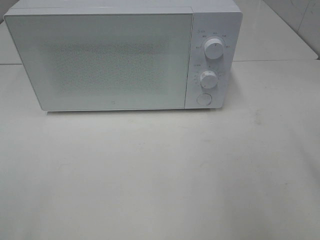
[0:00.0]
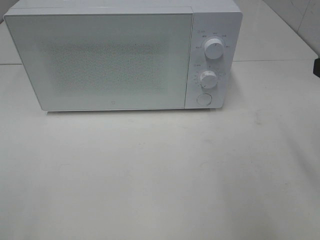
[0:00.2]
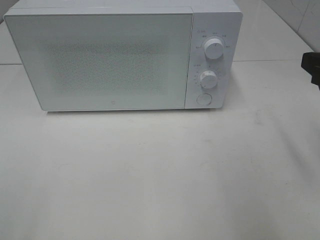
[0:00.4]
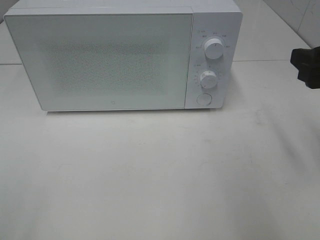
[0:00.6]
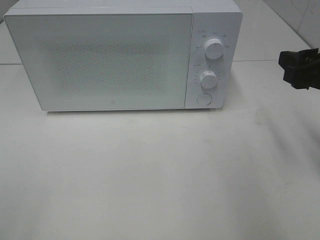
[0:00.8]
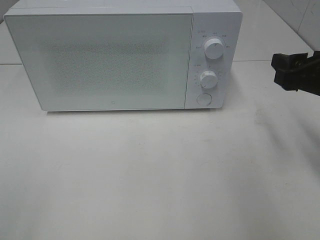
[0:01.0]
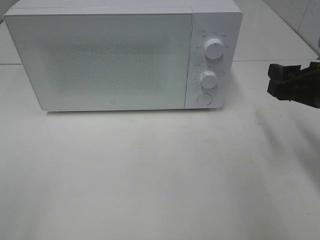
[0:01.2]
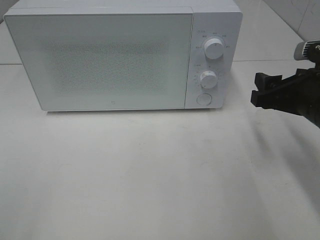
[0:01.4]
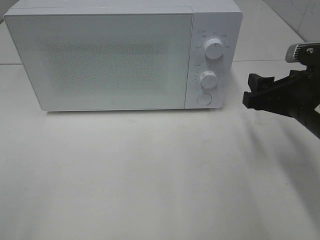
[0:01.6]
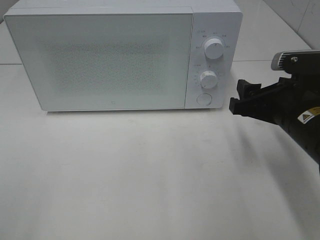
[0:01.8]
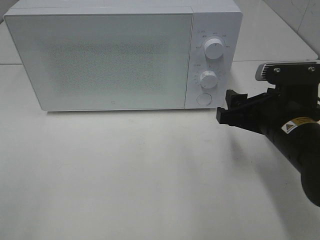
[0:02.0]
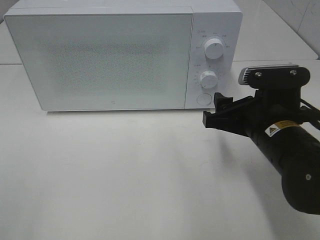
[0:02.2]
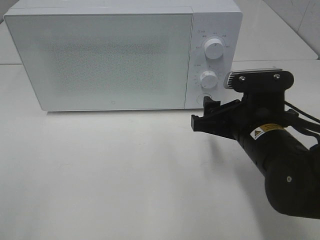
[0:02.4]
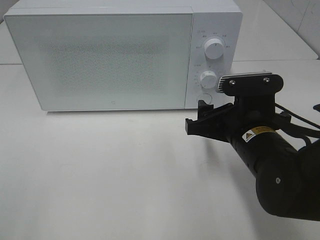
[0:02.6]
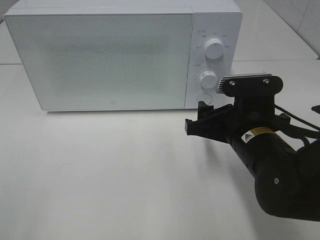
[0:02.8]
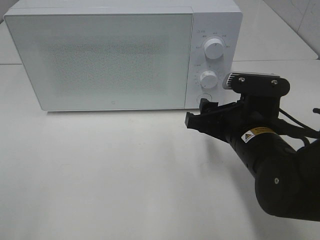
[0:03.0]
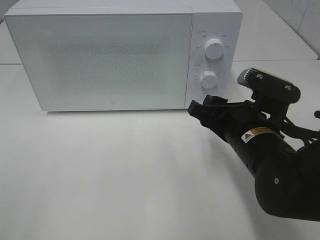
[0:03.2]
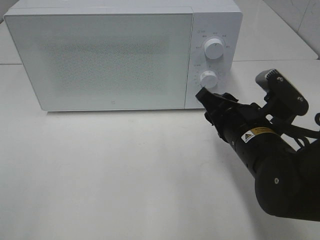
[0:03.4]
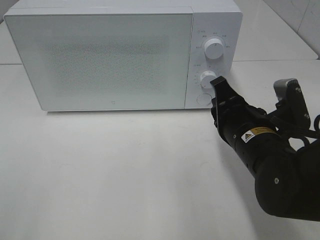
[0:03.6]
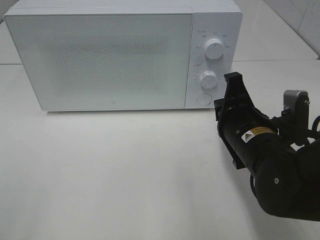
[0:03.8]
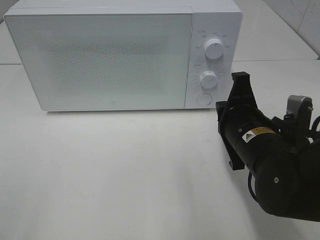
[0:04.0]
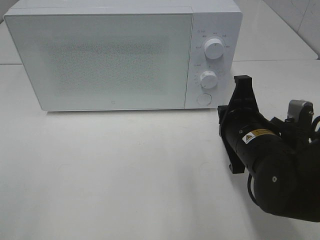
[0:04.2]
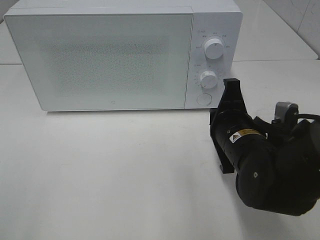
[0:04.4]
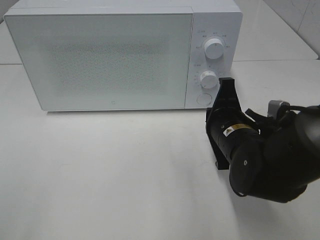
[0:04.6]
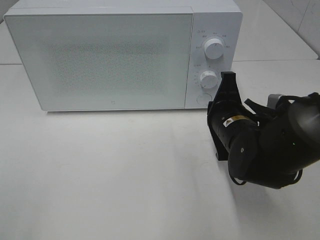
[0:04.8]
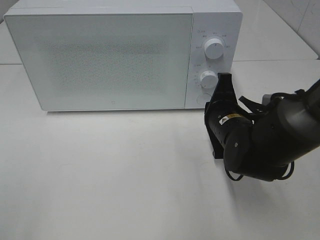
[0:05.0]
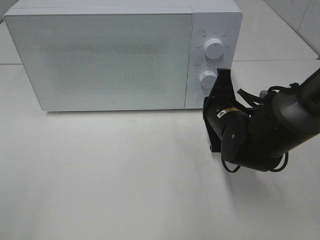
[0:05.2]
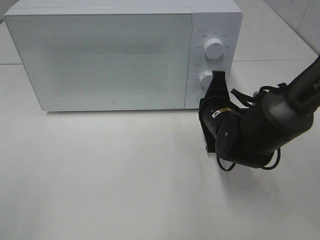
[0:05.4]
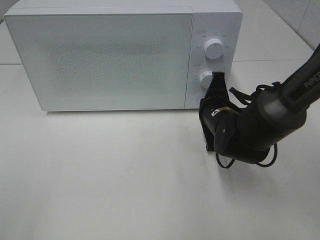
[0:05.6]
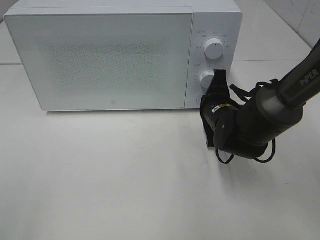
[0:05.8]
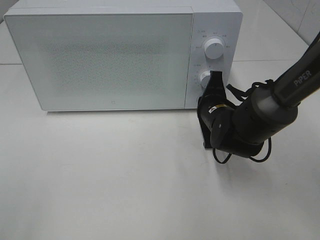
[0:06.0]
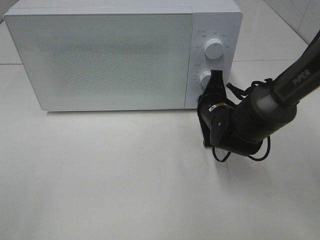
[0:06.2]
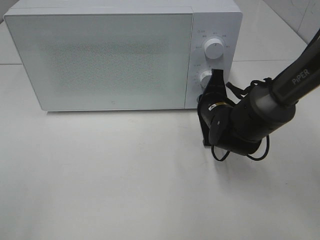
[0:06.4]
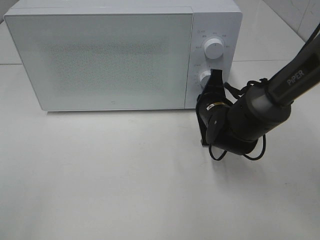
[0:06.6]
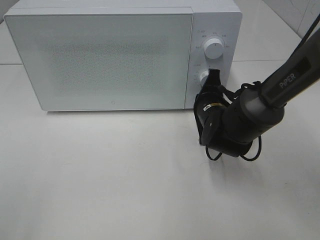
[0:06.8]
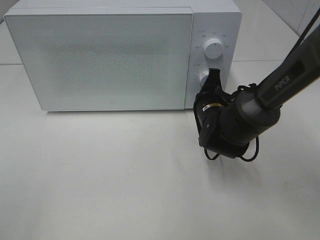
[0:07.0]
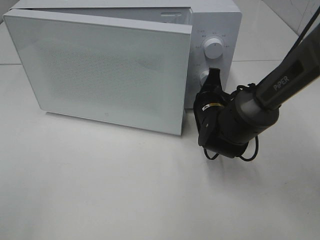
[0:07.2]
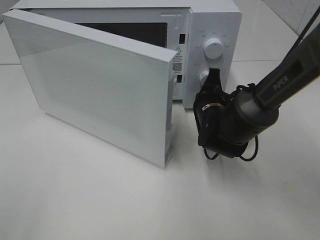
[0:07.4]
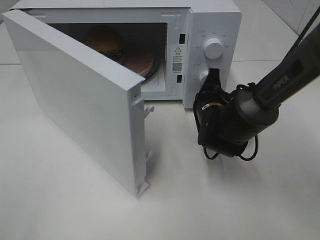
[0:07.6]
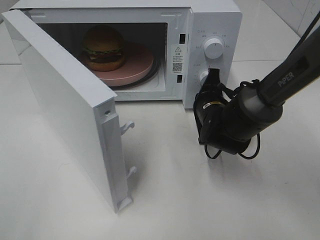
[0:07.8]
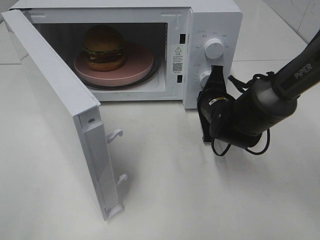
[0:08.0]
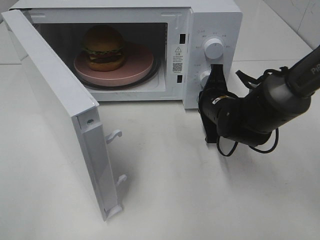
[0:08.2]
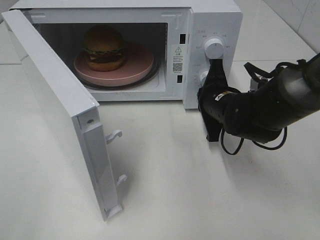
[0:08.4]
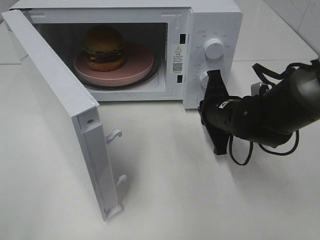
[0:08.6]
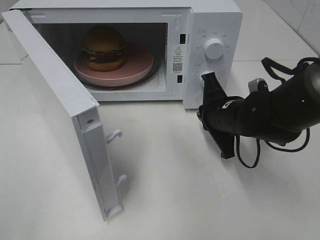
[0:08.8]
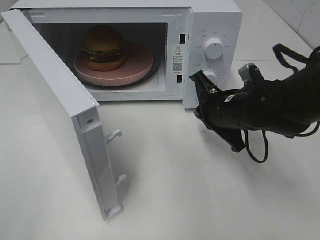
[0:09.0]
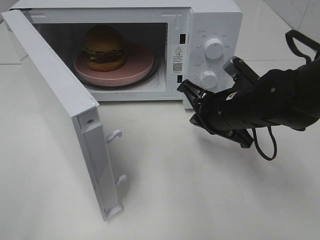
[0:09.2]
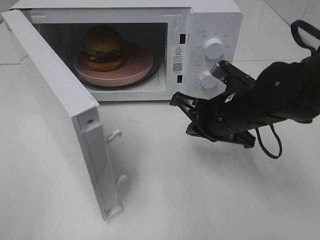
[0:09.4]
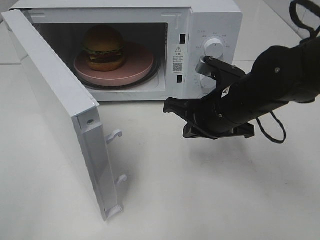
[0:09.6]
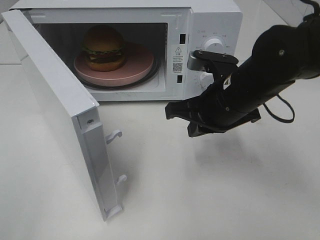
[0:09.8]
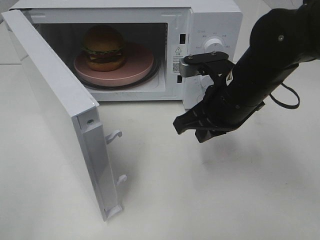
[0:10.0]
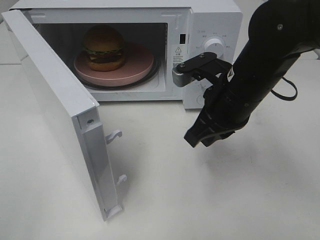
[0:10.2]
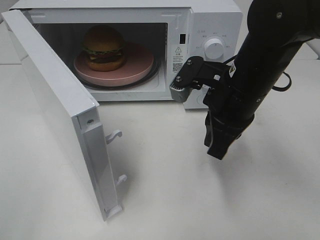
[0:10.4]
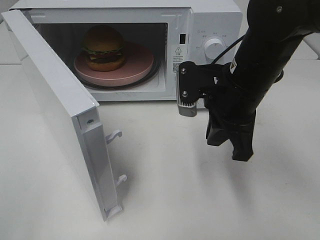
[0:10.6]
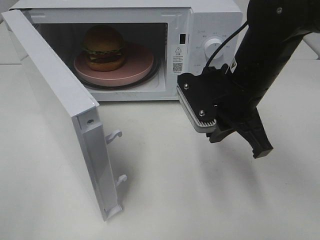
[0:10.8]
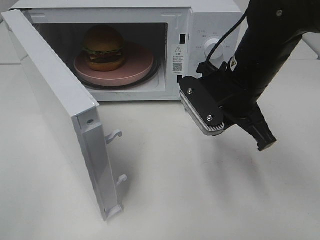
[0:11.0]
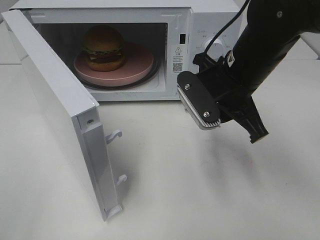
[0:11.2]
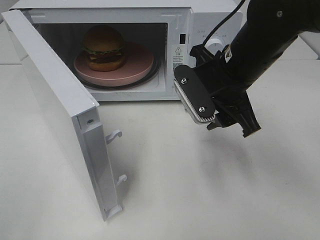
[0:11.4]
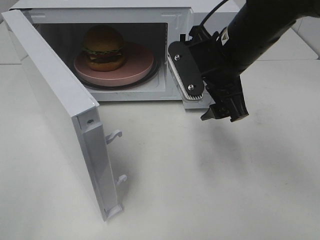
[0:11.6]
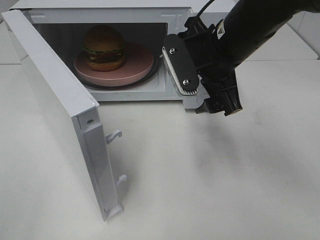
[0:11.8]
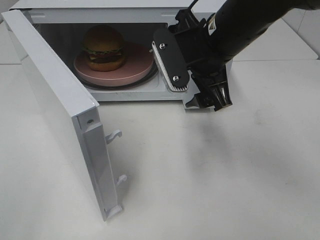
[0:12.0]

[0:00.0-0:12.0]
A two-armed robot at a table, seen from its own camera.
Task of the whole recording: Heat the burger.
Step, 0:00.0 to 0:08.6: Right hand: press the switch.
0:00.0 to 0:01.6: The right gripper is displaced downward and forward by some 15 cm.
0:01.6 to 0:03.0: The right gripper heads to the left, covering some 10 cm.
0:03.0 to 0:04.4: The right gripper closes up.
0:04.4 to 0:06.0: The right gripper heads forward, covering about 10 cm.
0:07.6 to 0:09.0: The right gripper moves upward and backward, about 10 cm.
0:09.0 to 0:10.4: The right gripper is displaced upward by approximately 5 cm.
0:10.4 to 0:12.0: The right gripper shifts by about 5 cm, and opens its fingers.

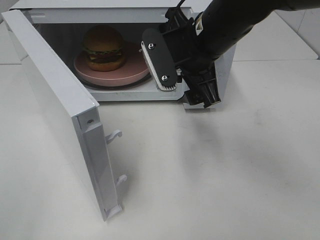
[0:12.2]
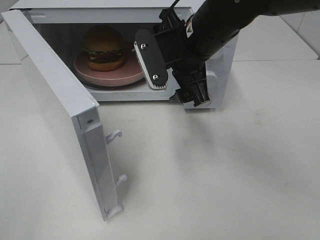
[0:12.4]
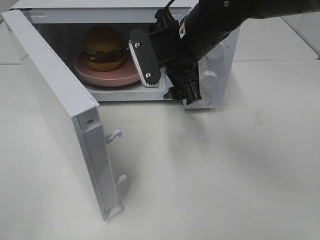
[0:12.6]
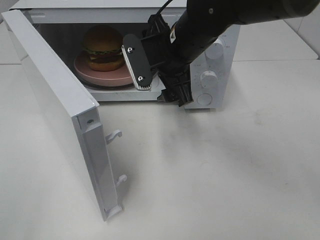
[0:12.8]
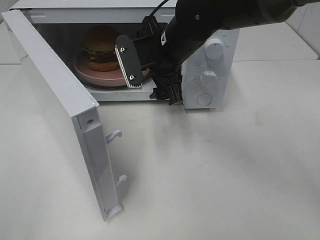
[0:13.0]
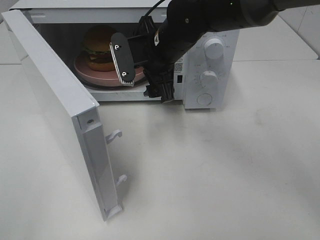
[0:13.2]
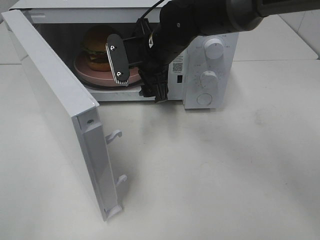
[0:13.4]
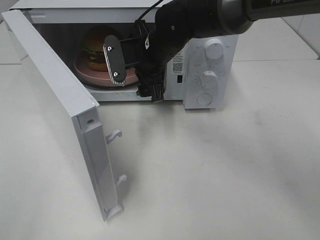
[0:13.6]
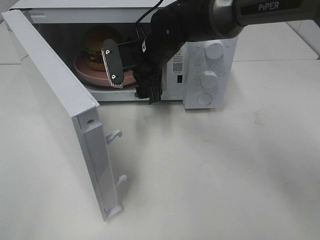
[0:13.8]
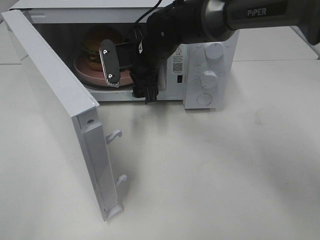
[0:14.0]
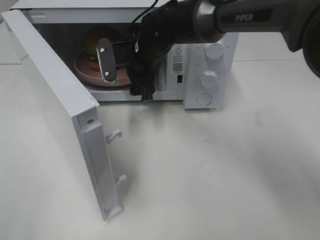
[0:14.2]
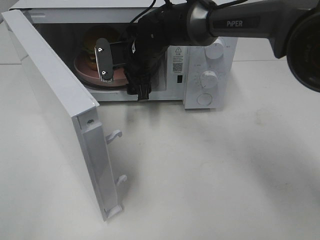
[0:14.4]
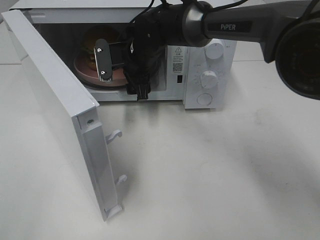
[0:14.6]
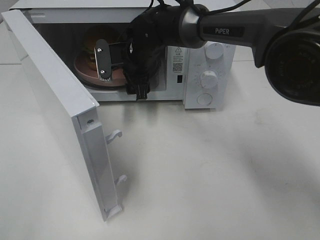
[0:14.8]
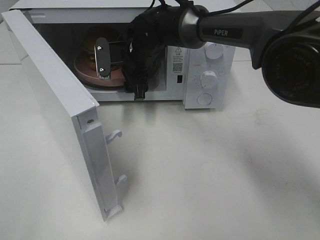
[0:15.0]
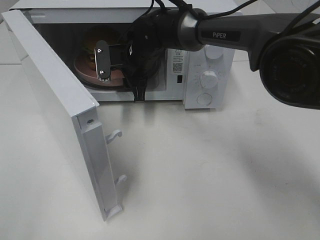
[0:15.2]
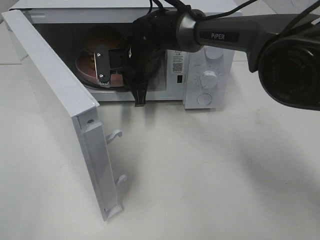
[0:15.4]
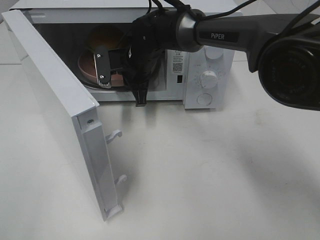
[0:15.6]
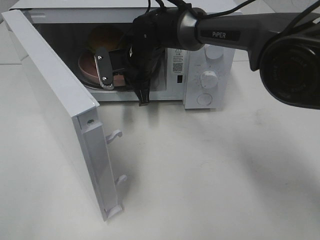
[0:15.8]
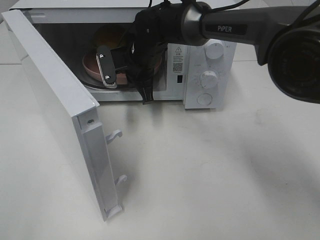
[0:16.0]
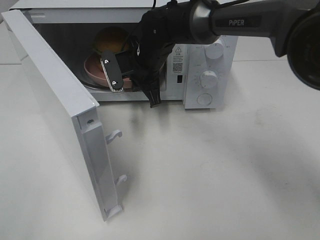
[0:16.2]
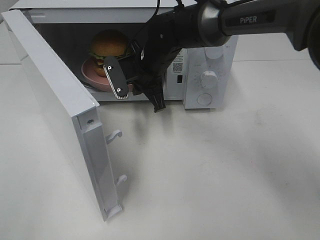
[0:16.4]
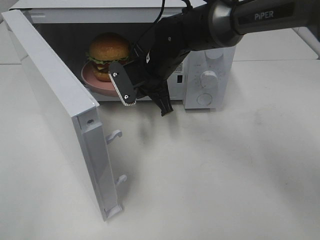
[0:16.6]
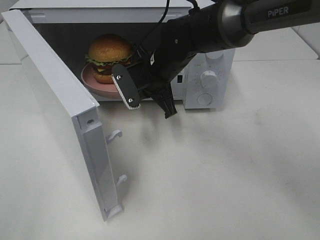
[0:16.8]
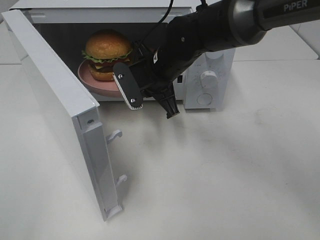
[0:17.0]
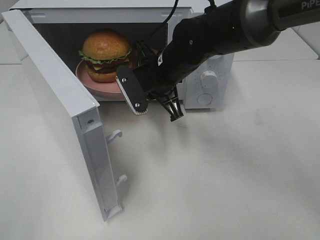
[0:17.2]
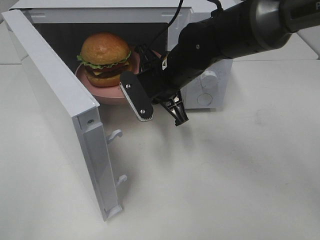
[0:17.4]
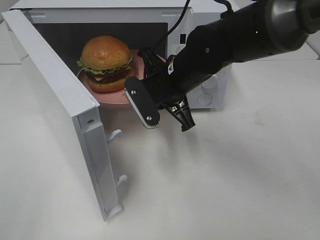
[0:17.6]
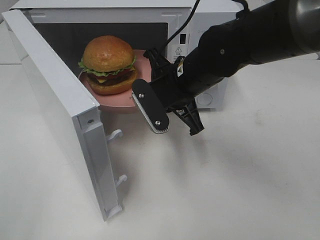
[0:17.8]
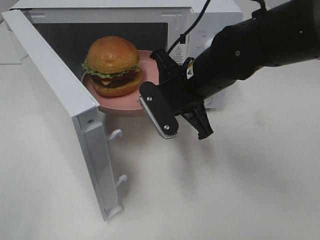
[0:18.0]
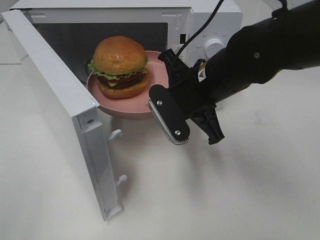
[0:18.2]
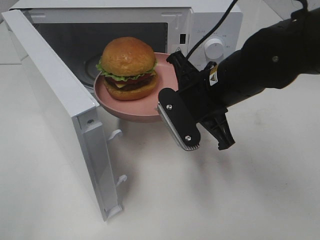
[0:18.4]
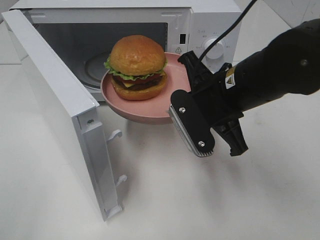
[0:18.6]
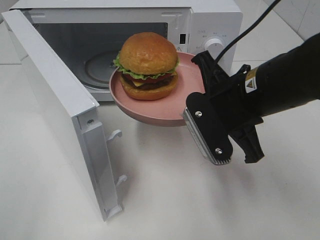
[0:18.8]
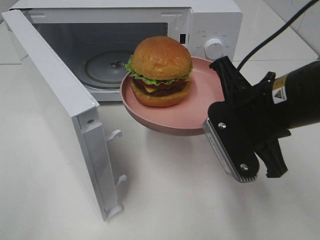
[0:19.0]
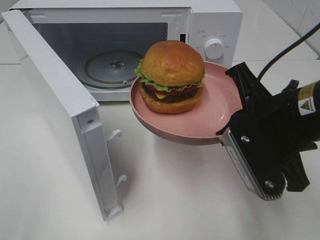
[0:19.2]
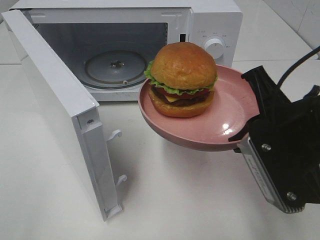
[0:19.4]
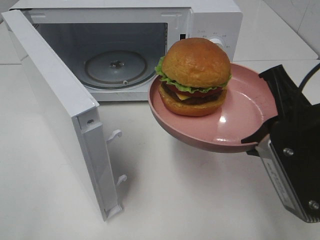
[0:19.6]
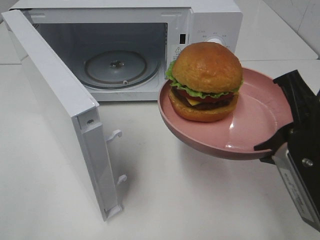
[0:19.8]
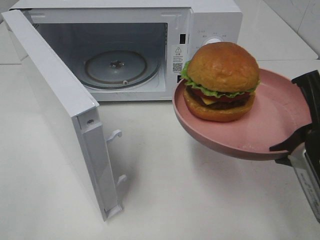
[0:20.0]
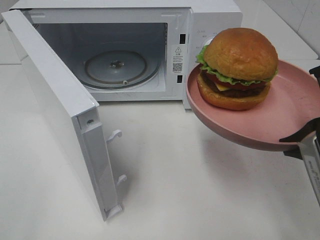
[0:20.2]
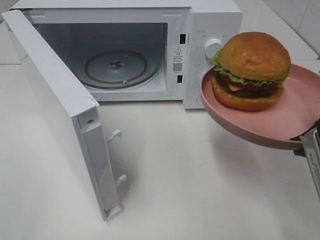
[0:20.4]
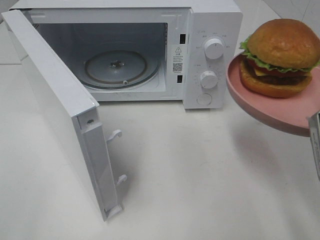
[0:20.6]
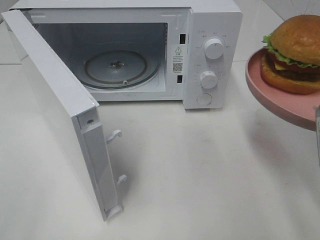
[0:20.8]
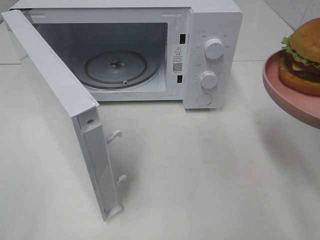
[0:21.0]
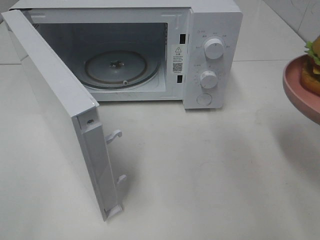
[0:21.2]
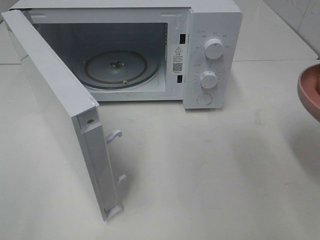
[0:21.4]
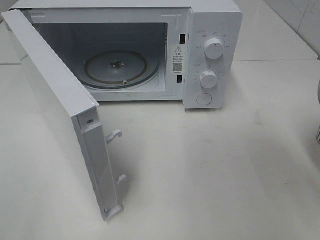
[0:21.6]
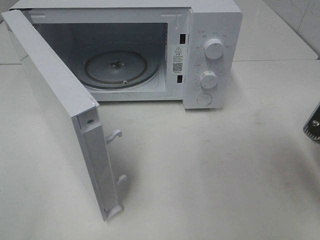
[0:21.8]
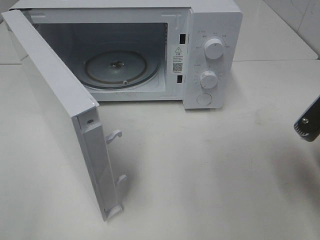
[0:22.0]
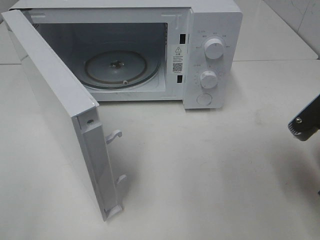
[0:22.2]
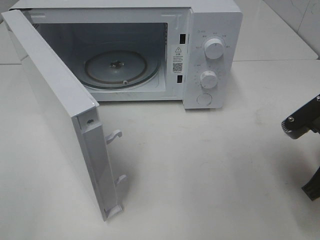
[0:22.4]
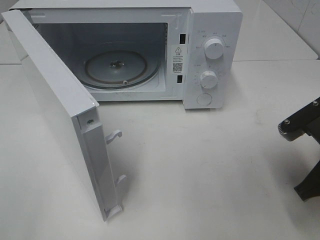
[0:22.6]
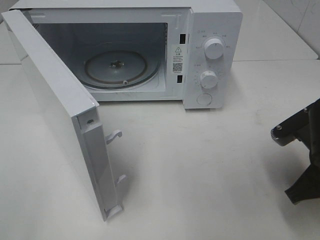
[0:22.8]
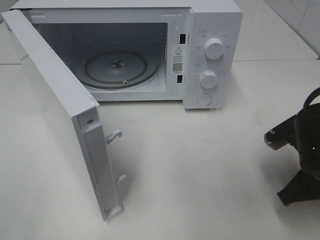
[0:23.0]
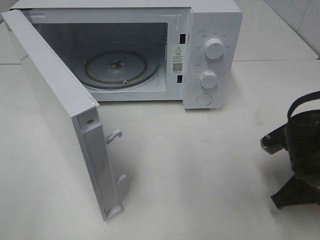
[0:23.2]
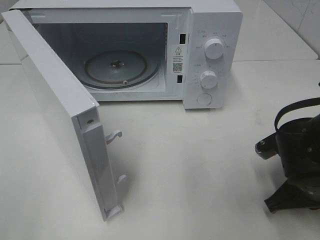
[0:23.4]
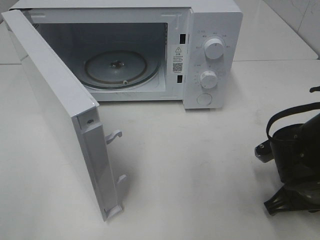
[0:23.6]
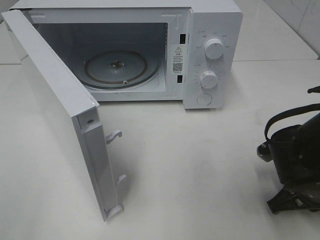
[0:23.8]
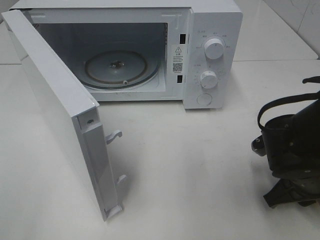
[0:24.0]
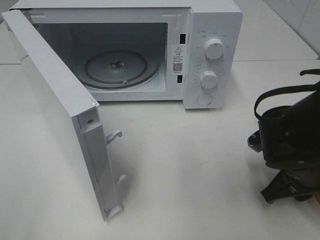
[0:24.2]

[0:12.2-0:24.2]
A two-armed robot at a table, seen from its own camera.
Task of the whole recording: Heat the burger.
Step, 0:12.2 to 0:15.6: Right hand: grab the plate with the hamburger.
0:12.2 to 0:13.8: The right gripper shifts roughly 15 cm forward, to the left and downward.
0:13.8 to 0:15.2: The right gripper ends up about 5 cm from where it was, and closes its fingers.
0:15.2 to 0:16.6: The right gripper moves backward, approximately 5 cm, and closes.
0:16.6 to 0:18.2: The right gripper goes roughly 15 cm backward and to the right.
0:18.2 to 0:19.8: The right gripper is displaced backward and to the right by some 20 cm.
0:19.8 to 0:21.2: The right gripper goes about 5 cm to the right.
0:21.2 to 0:22.6: The right gripper moves downward, some 10 cm.
0:22.6 to 0:24.2: The right gripper travels downward by roughly 5 cm, and opens.
